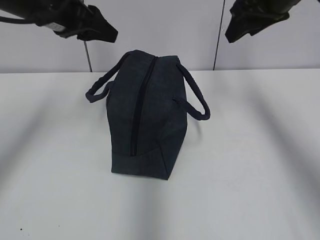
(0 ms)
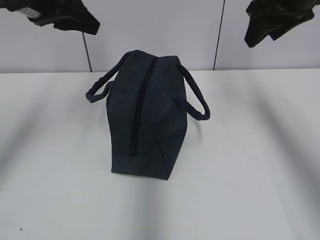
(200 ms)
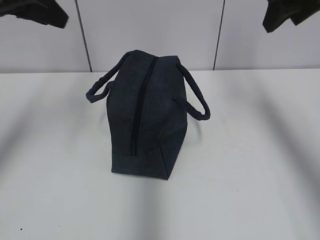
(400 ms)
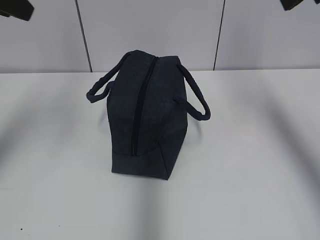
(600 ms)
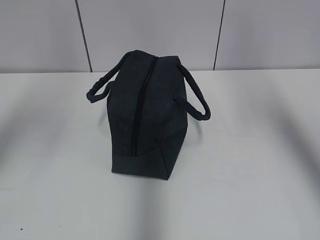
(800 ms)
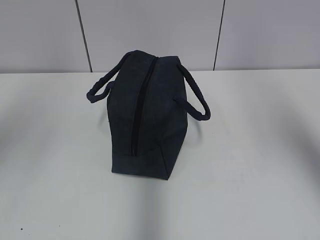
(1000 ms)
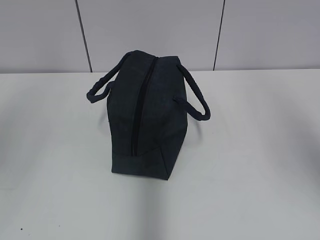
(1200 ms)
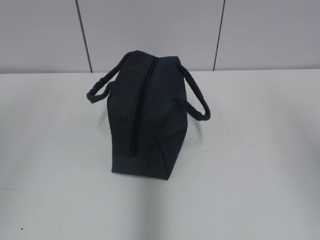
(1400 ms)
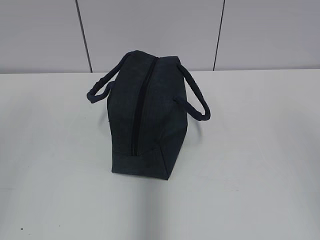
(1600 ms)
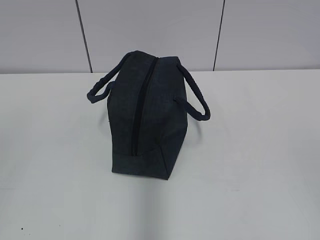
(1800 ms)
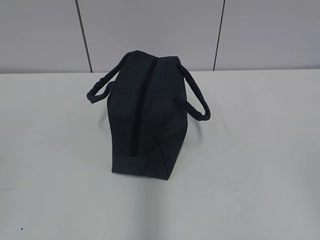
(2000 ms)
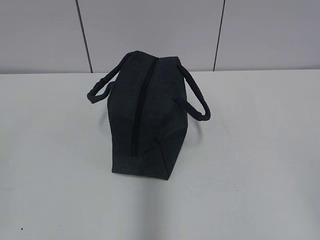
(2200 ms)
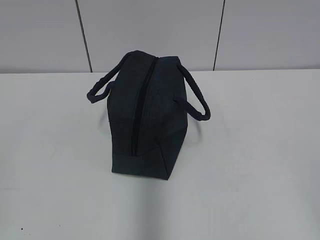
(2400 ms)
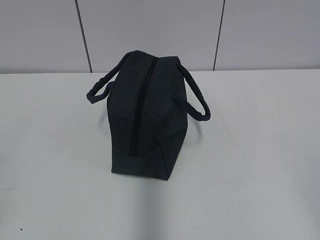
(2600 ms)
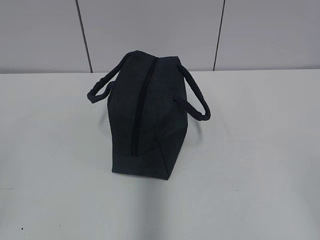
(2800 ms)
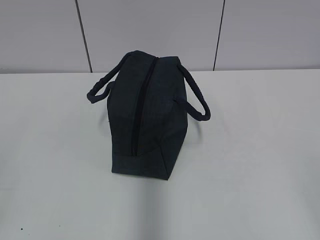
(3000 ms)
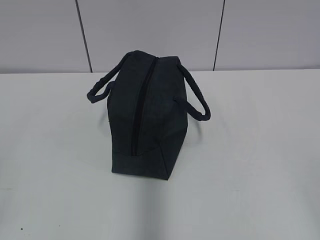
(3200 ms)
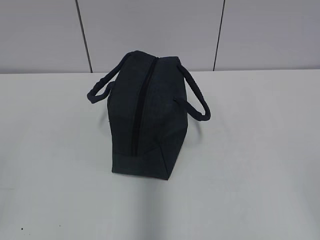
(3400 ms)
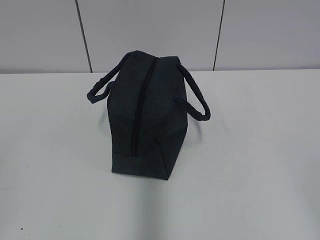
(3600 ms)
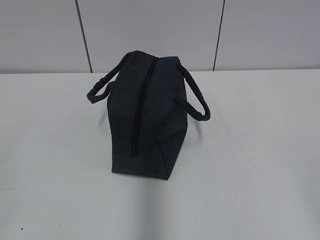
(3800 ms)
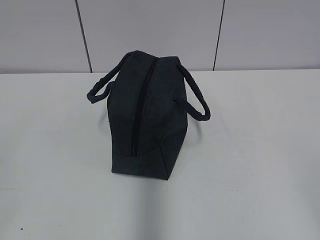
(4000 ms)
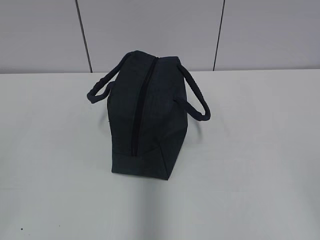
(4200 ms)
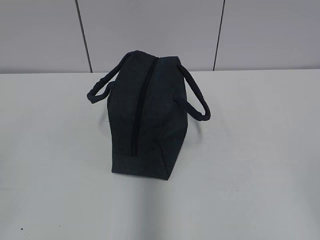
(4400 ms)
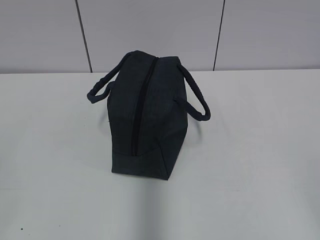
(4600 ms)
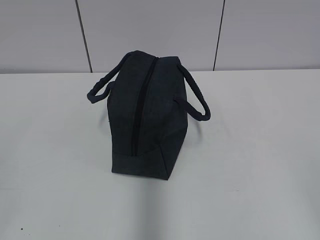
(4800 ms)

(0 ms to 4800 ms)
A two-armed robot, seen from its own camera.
0 ms - 1600 ms: The grippers both shift backward by about 40 cm.
